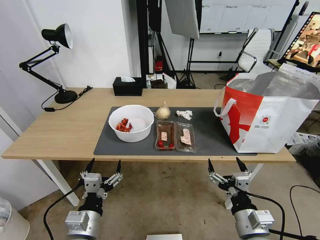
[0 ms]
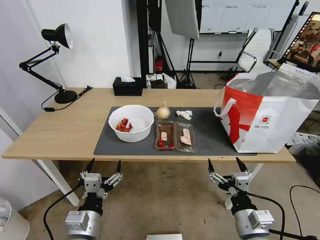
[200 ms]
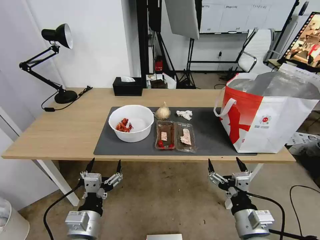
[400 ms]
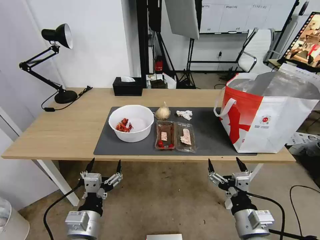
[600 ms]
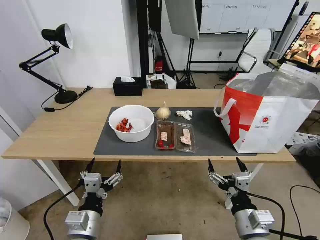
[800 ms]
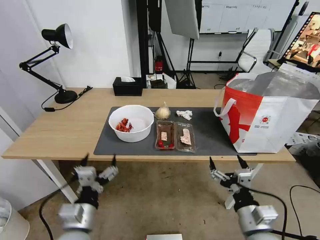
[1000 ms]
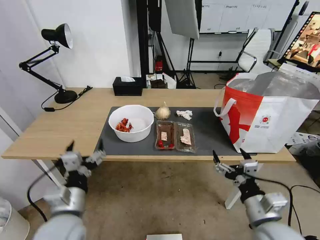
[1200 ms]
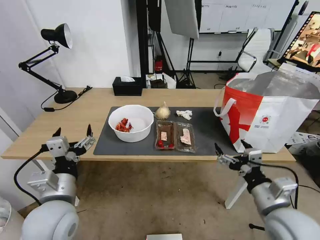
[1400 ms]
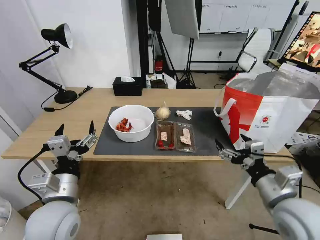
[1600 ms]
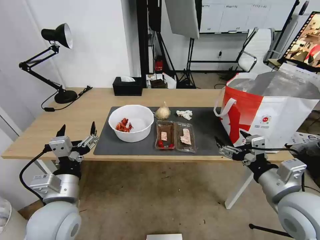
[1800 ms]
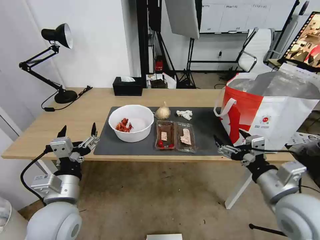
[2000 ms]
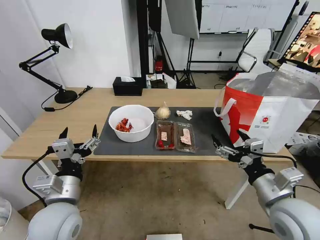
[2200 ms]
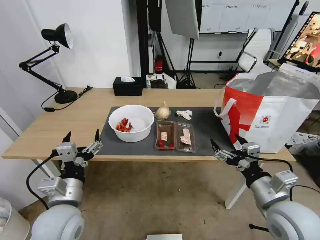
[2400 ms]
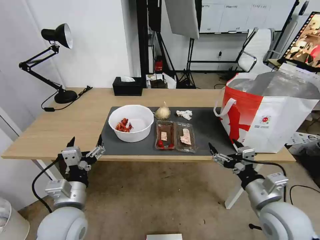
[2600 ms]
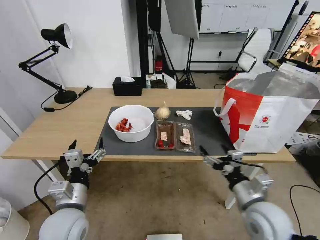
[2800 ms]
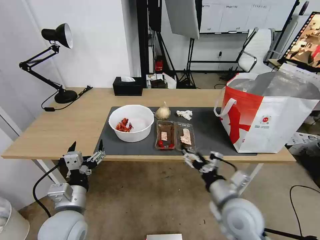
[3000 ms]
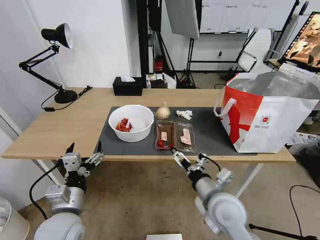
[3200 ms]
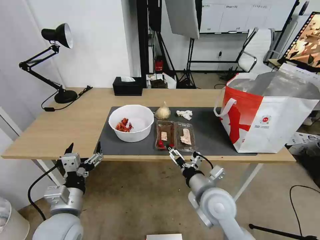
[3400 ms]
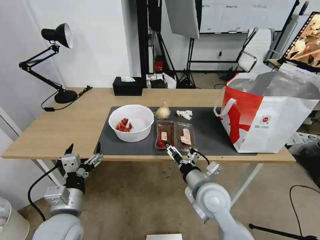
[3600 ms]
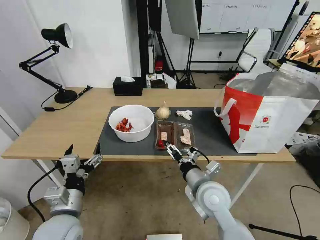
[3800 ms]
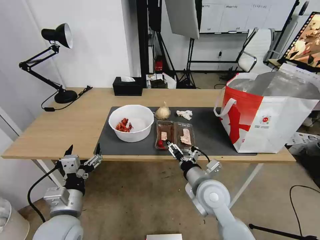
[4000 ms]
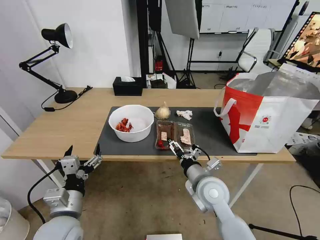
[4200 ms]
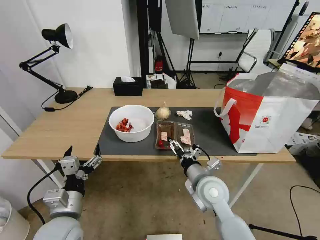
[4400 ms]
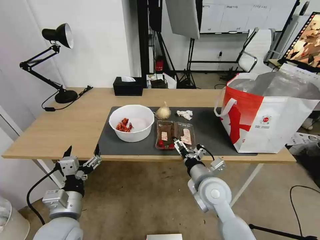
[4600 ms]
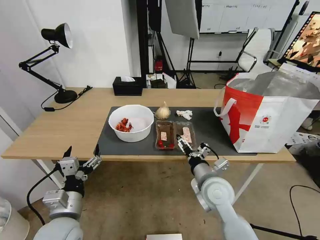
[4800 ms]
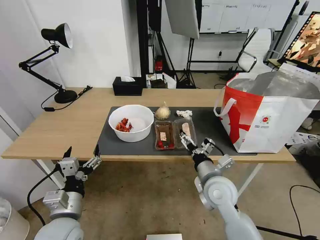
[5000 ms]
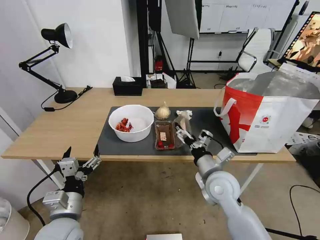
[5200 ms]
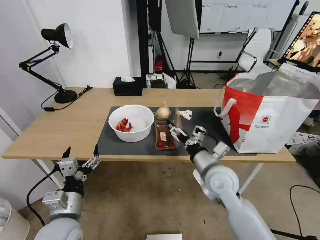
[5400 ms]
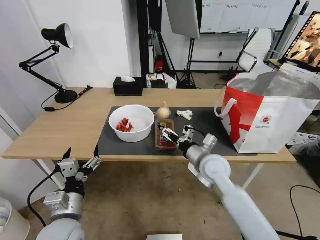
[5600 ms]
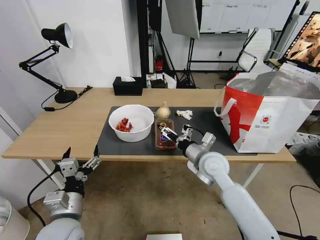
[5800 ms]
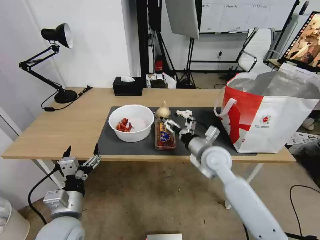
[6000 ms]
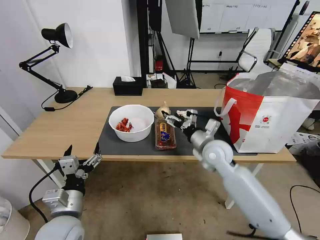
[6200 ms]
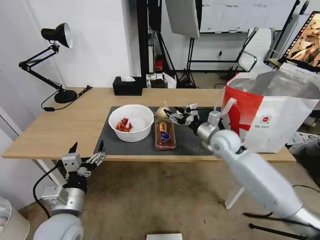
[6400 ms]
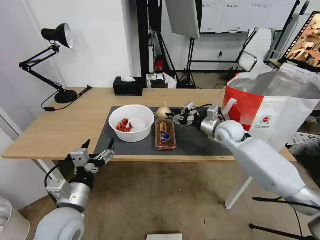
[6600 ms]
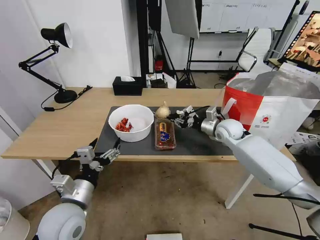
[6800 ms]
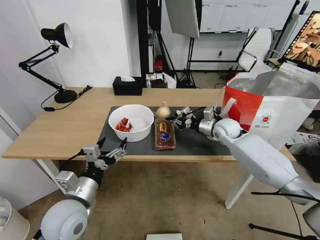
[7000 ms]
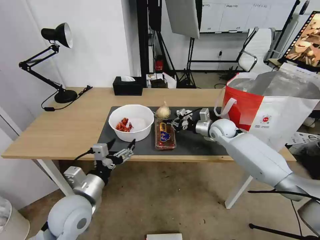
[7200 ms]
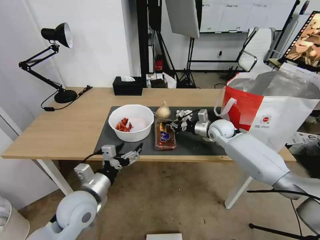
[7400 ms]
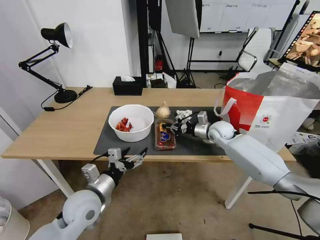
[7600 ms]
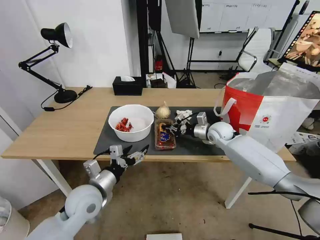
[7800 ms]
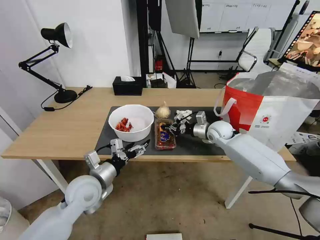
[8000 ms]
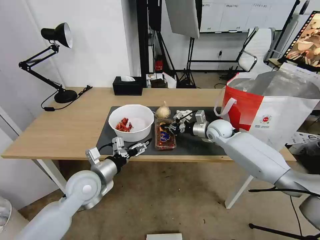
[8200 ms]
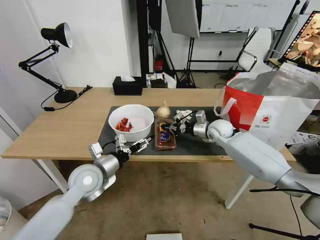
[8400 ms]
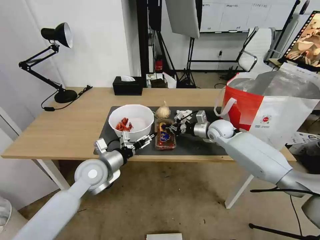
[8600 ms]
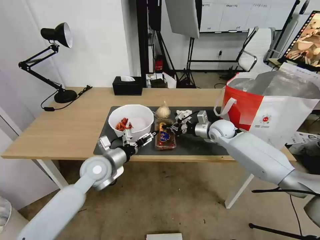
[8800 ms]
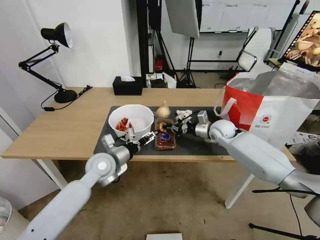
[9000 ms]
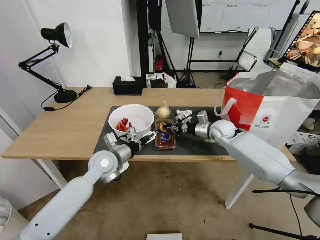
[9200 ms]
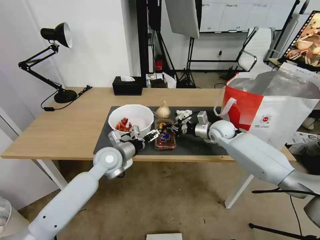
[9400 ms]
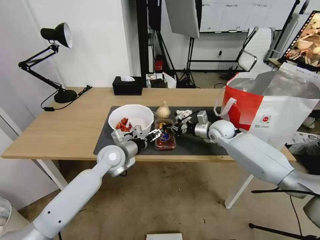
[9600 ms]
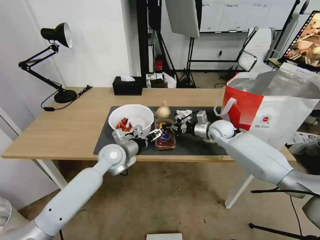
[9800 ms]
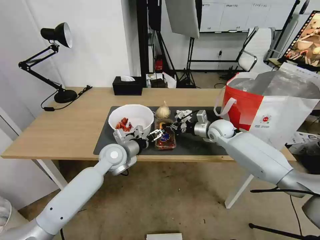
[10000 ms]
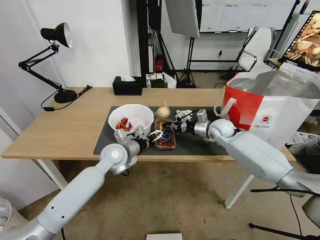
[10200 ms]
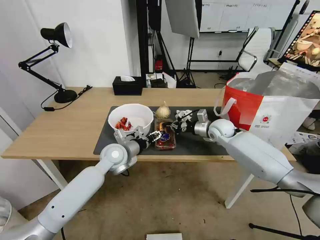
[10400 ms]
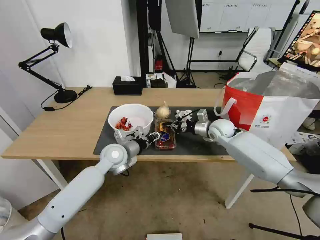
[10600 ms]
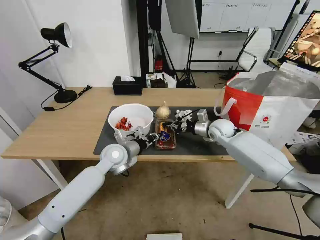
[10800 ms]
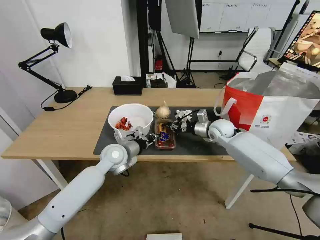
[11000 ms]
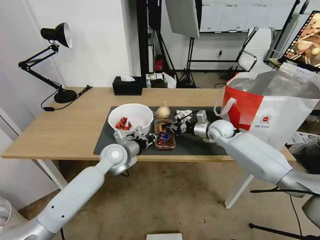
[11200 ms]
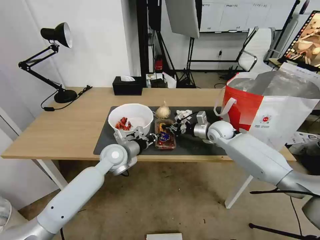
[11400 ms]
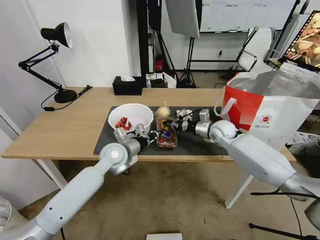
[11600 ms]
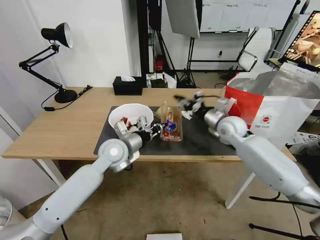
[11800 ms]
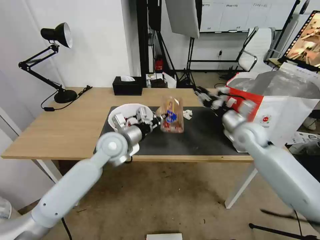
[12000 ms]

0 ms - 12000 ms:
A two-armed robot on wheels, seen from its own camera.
Task of the whole recording: Pick up the trash from the table and place it into the takeout bag.
1600 ms - 3000 ms: The left gripper travels downward by roughly 5 cm. Meanwhile the right gripper moves to the left and downward, approximately 10 cm.
3000 ms - 4400 ms: The right gripper is displaced forward and to the left by approximately 10 cm.
4400 ms - 6000 ms: The right gripper travels forward by approximately 10 cm.
6000 ms - 7600 ms: The left gripper is displaced forward by approximately 5 cm. Meanwhile the right gripper heads forward and to the right, covering some 20 cm, and closes.
7600 ms - 9000 ms: The left gripper travels forward by roughly 10 cm.
9000 ms - 10400 ms: The left gripper ends up about 5 cm from where it was.
10400 ms - 12000 ms: The right gripper shifts roughly 10 cm backward and upward; the left gripper is displaced upward by some 5 cm, and closes up.

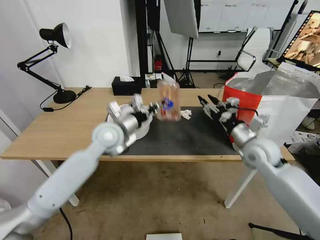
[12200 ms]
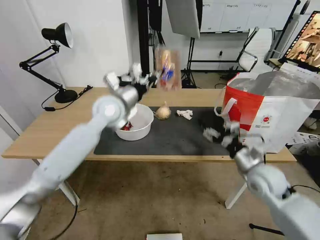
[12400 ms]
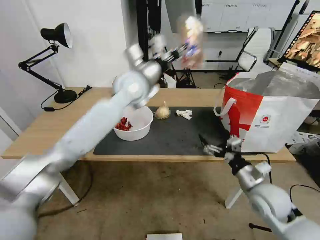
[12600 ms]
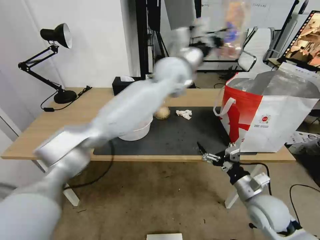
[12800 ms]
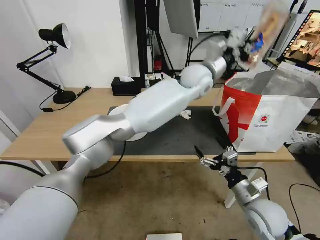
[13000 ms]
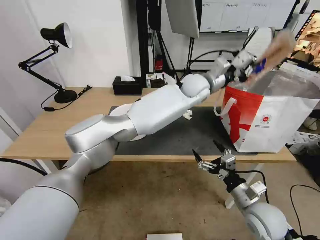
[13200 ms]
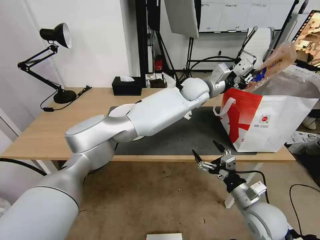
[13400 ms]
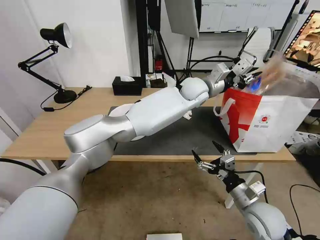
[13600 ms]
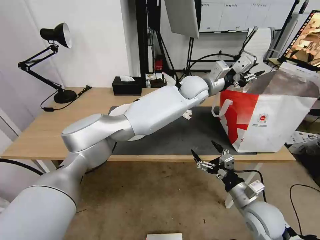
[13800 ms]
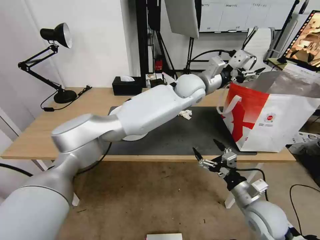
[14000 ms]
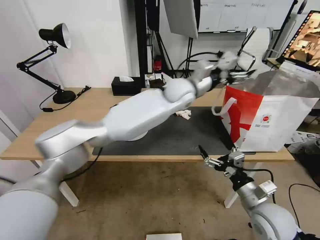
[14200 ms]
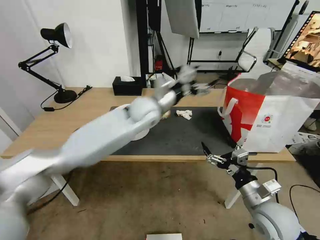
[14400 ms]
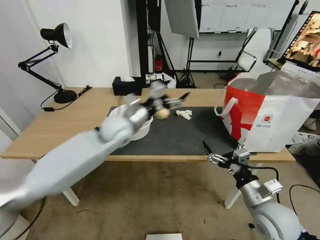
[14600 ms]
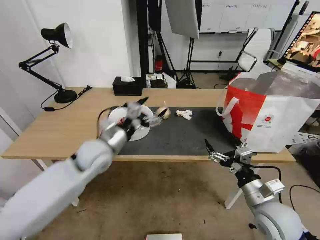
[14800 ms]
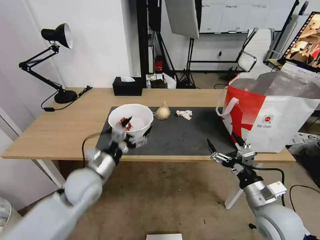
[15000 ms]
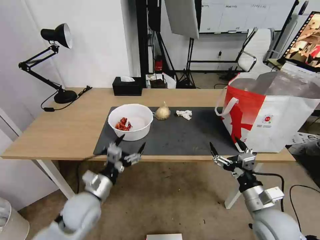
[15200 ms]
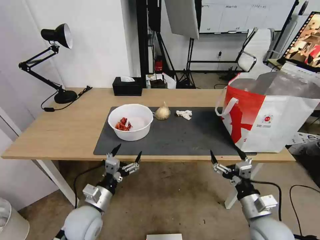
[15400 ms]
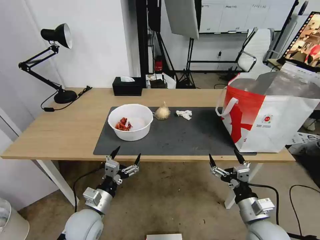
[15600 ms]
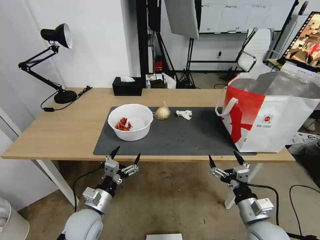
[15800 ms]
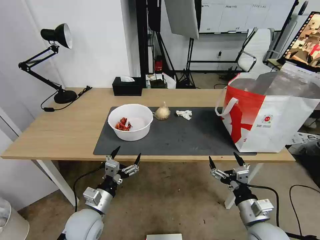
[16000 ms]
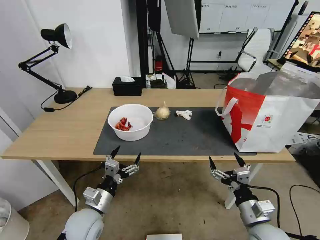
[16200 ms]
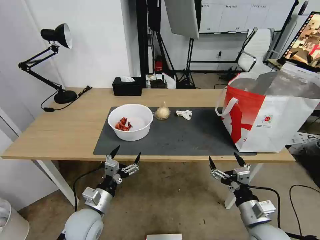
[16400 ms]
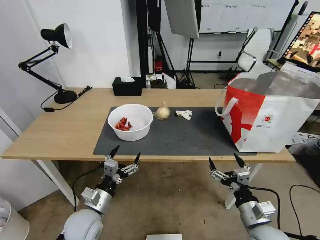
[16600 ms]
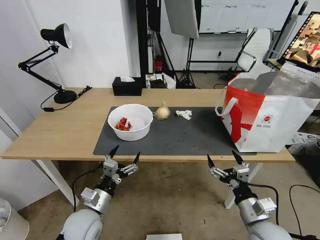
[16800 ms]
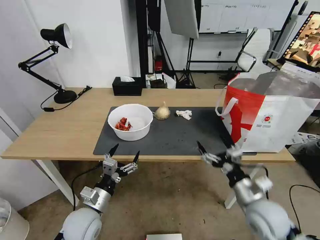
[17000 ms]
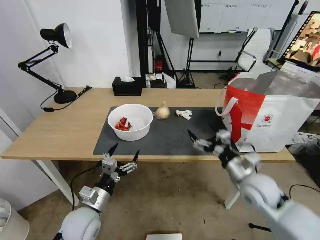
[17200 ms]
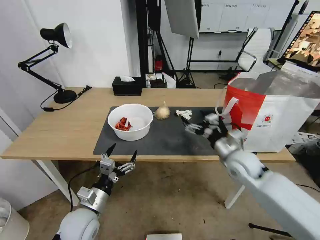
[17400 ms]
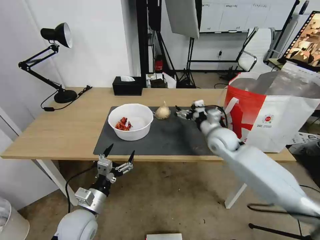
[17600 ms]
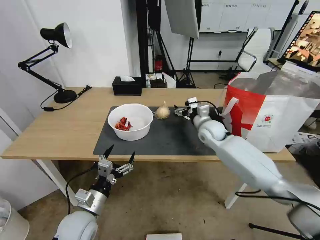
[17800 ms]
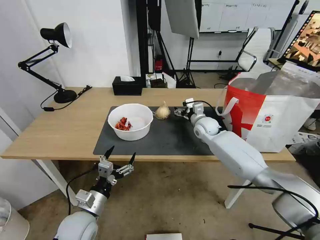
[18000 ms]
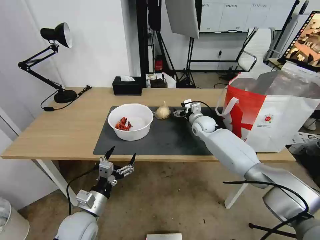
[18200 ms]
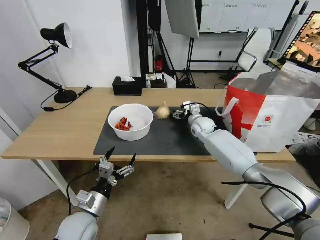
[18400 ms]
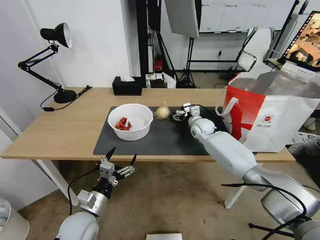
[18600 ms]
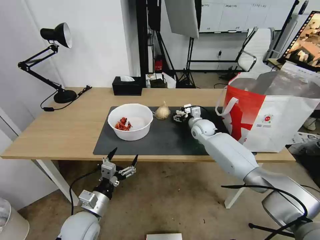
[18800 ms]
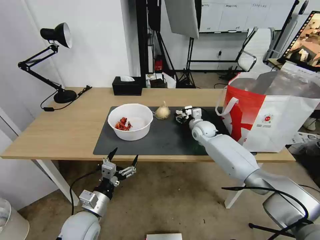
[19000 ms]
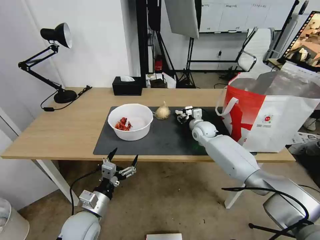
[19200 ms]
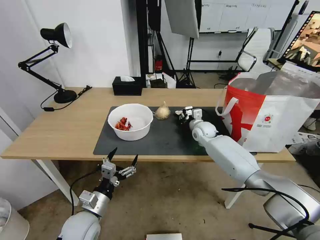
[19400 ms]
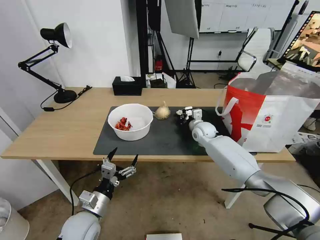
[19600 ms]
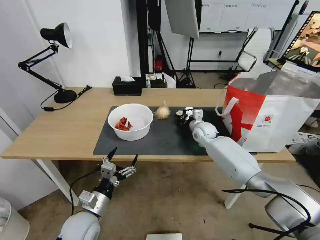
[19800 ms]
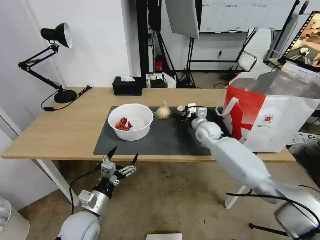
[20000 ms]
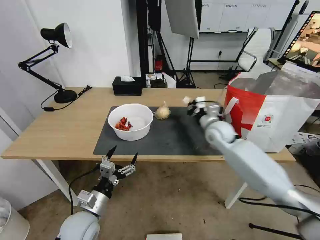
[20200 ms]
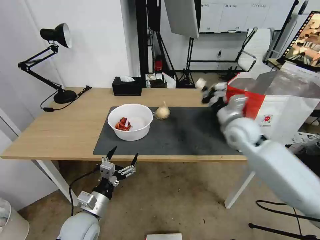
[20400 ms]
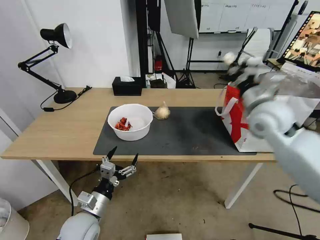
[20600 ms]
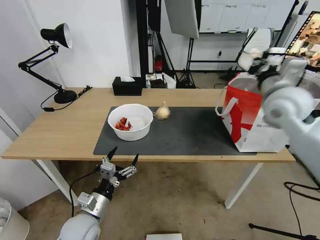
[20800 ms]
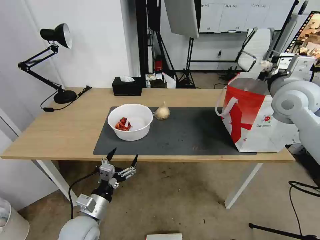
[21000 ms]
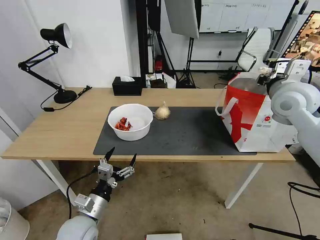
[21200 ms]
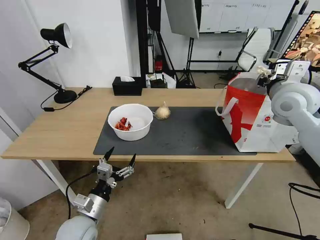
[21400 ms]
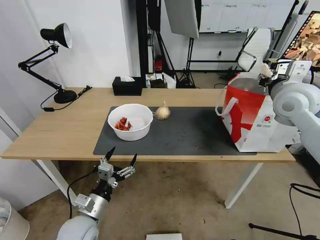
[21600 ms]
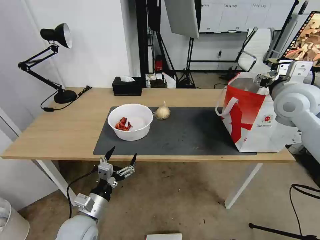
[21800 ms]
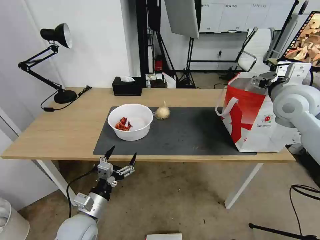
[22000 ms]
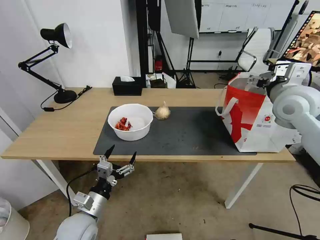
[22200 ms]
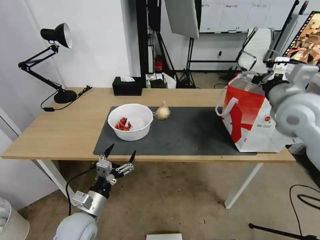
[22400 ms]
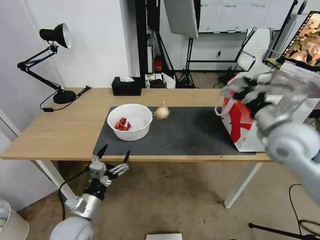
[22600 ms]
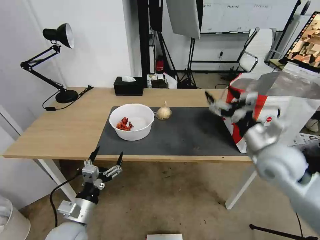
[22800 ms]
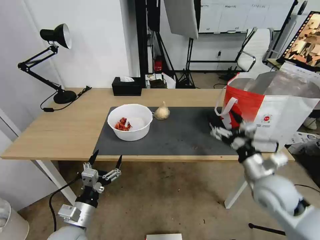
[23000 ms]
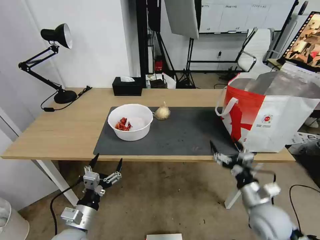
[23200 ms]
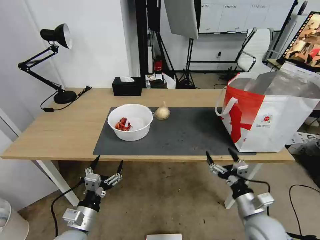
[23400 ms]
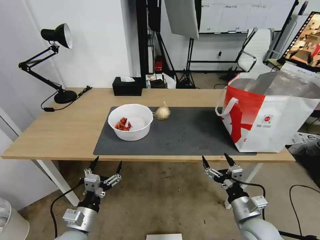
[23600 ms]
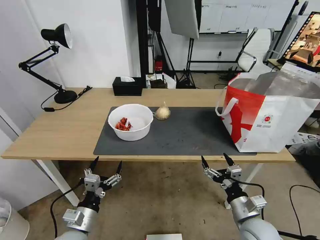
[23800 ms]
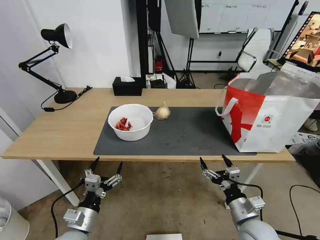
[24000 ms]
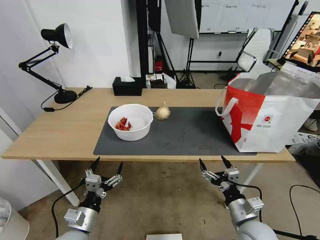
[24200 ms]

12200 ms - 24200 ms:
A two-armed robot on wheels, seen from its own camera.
Task of the whole recording: Pick up the trash from the table and place it into the takeout bag.
12200 ms - 13800 ms: The left gripper heads to the right and forward, covering approximately 30 cm, and opens its fingers. The right gripper travels backward and downward by approximately 20 cm, and opens its fingers.
13800 ms - 15200 ms: The left gripper is displaced to the left, backward and downward by some 50 cm, and opens.
15200 ms - 16600 ms: The right gripper shifts by about 5 cm, while the left gripper changes place by some 5 cm.
16600 ms - 18200 ms: The right gripper moves forward, about 40 cm.
18200 ms - 19800 ms: The right gripper closes its fingers.
19800 ms - 21200 ms: The right gripper shifts roughly 30 cm upward, to the right and backward.
21200 ms - 22600 ms: The right gripper heads backward and downward, covering some 10 cm, and opens its fingers.
22600 ms - 24200 ms: The right gripper moves downward and backward, approximately 30 cm.
